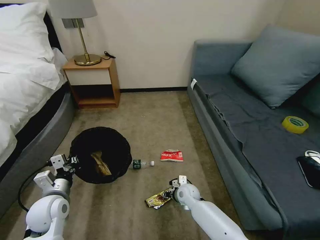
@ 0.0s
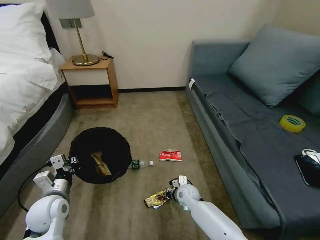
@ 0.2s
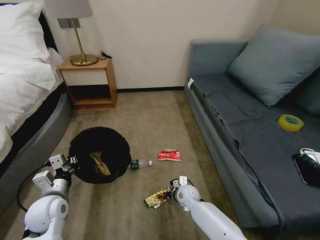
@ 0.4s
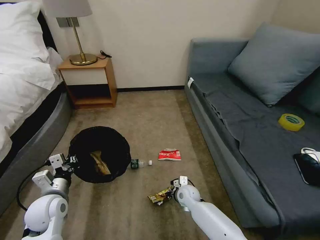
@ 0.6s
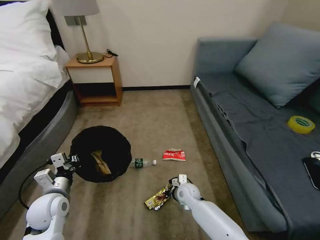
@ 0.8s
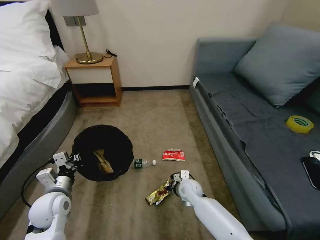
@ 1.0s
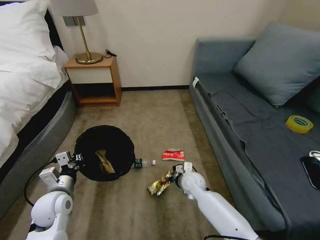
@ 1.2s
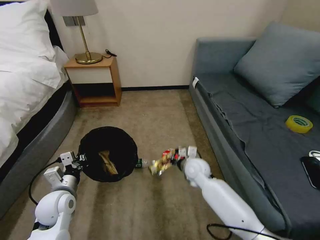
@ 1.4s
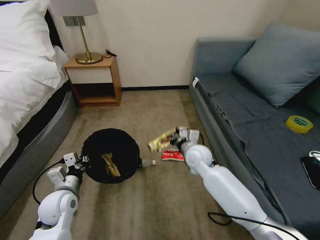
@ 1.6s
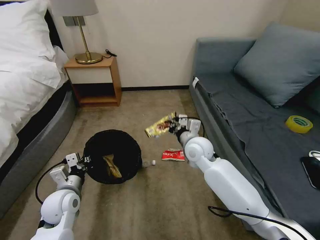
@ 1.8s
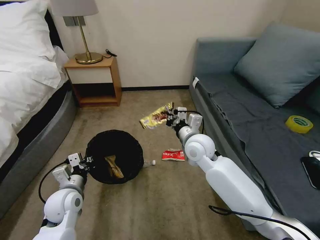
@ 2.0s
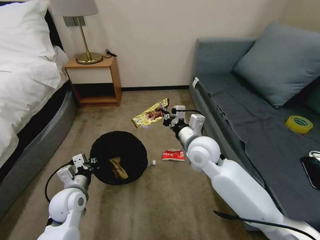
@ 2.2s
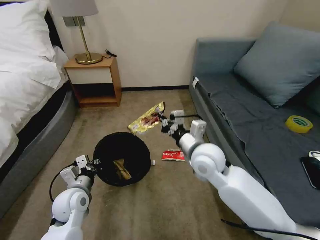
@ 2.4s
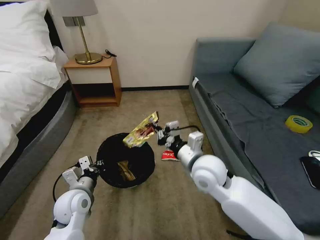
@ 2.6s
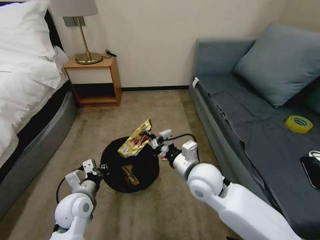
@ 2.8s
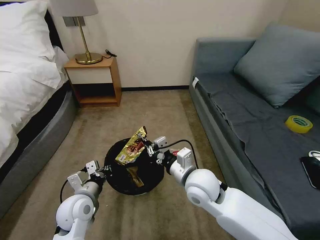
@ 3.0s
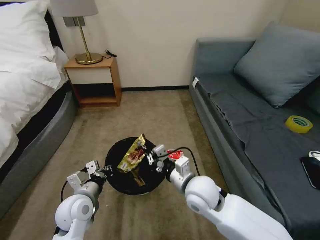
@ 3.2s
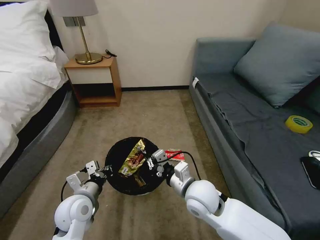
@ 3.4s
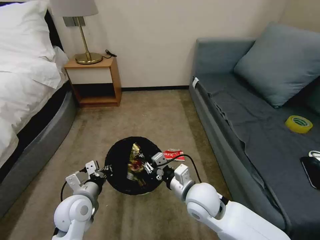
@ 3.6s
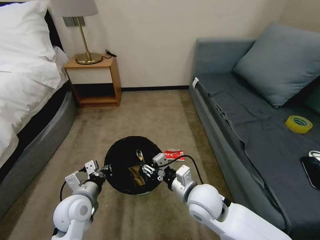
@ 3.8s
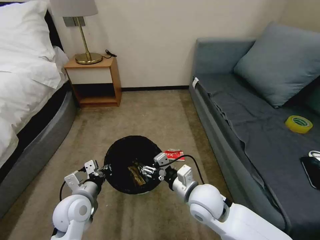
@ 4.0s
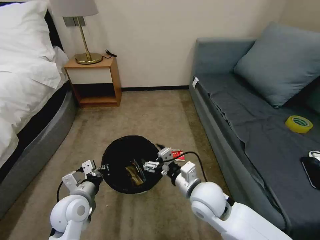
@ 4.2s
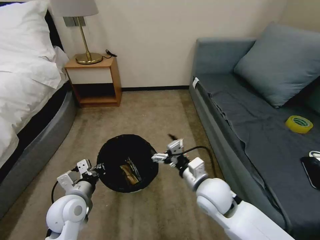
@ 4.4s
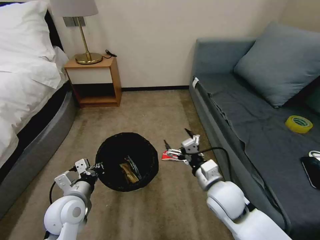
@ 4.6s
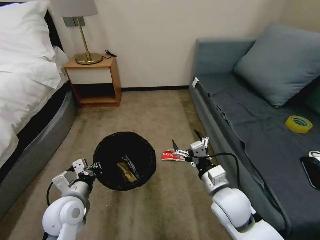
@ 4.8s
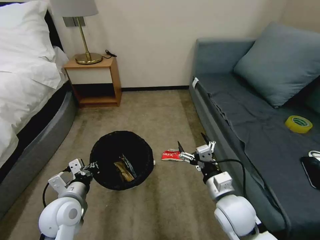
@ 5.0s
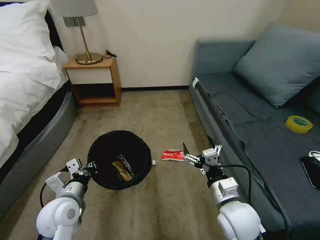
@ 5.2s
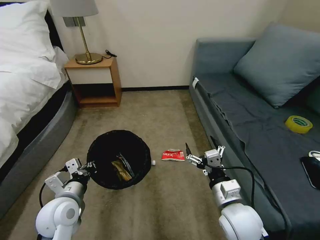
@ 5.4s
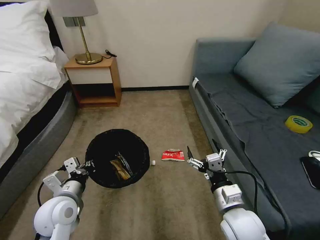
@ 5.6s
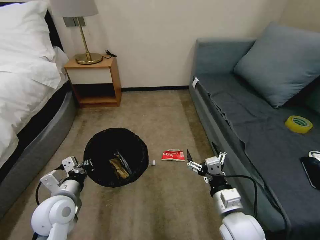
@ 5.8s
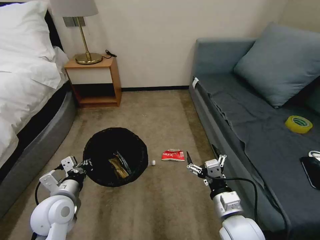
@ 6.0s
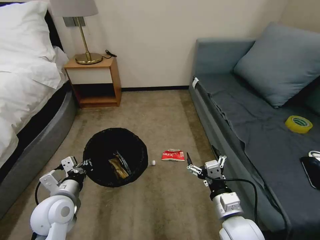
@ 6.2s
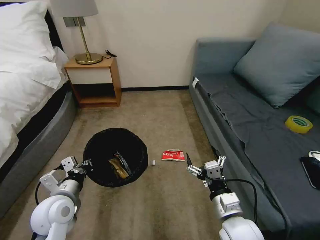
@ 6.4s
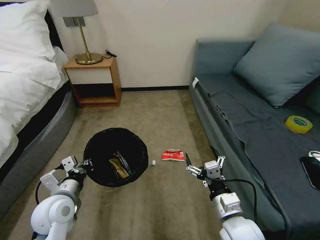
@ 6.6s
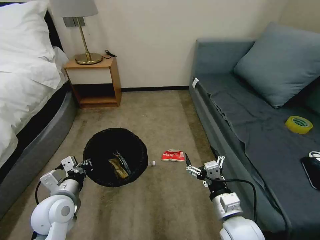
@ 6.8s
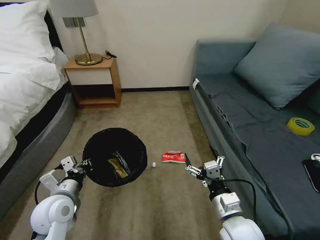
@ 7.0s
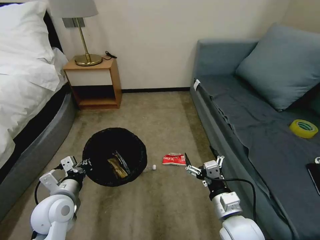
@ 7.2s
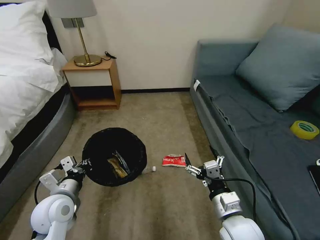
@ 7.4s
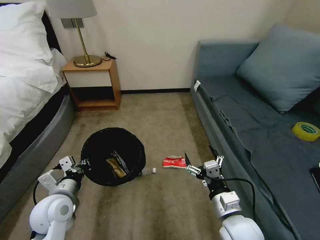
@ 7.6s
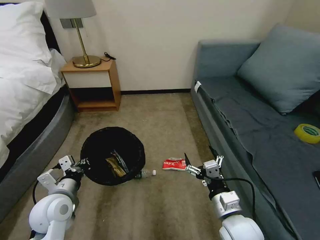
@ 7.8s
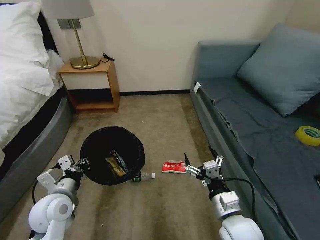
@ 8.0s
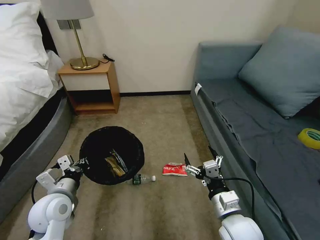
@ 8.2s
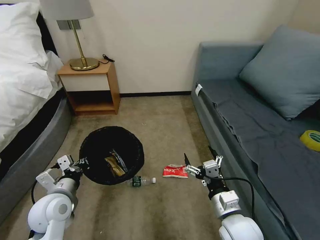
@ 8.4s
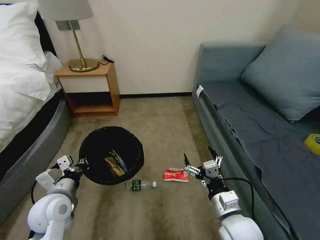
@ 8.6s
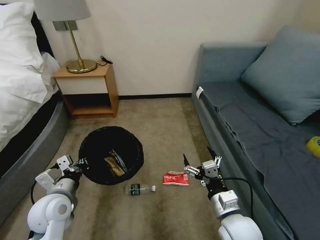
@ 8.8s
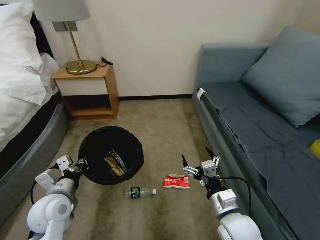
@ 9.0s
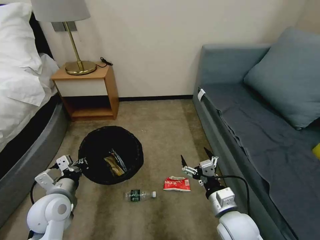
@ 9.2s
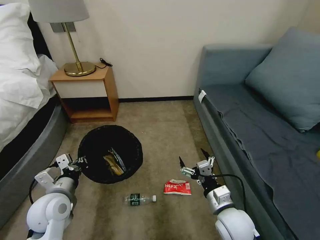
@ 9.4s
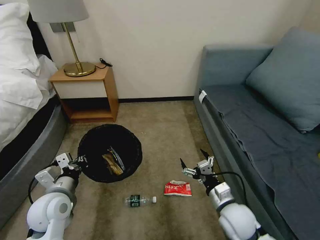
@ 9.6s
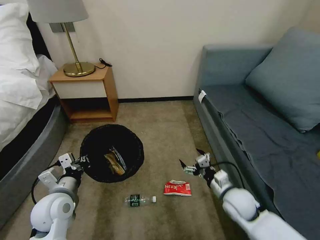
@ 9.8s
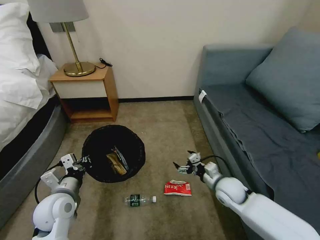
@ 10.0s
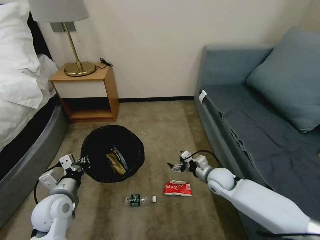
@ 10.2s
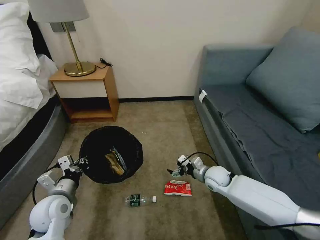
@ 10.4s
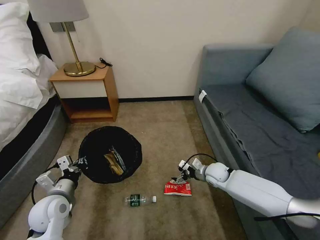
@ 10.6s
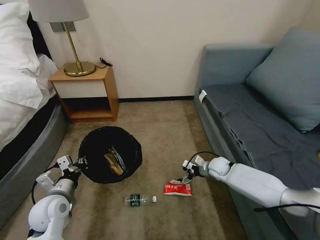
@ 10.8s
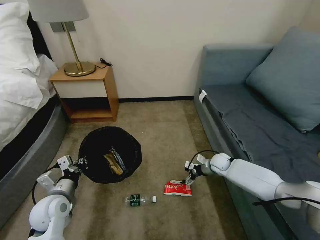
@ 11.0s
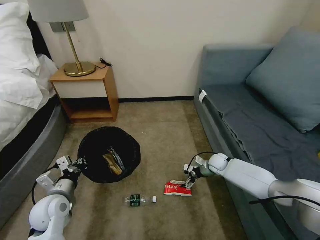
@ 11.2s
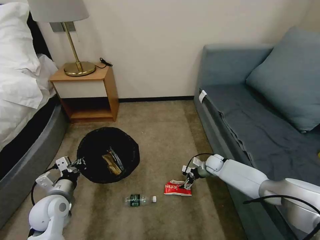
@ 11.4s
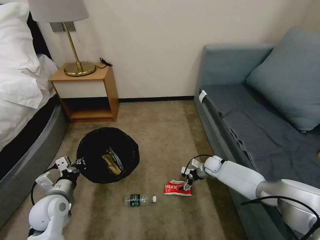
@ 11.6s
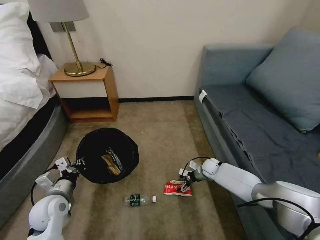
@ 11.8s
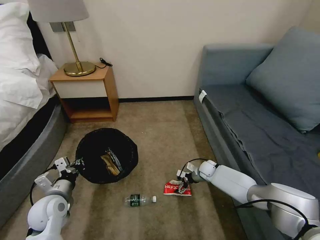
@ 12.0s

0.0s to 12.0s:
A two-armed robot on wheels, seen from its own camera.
Task of the whole recording: Pick up the trash bin, then pick up the garbage on the floor and place it into the trash bin.
0.0s to 1.6s: The right gripper moves upward, about 20 cm, and closes its fingers.
1.6s to 3.0s: The left gripper travels to the right by about 5 cm. Meanwhile the right gripper goes some 15 cm backward.
3.0s to 4.4s: The right gripper changes place by approximately 5 cm, and opens its fingers.
4.4s to 6.0s: The right gripper is displaced backward by approximately 10 cm.
6.0s to 7.6s: Both grippers stay about where they are.
9.0s to 10.4s: The right gripper travels forward and downward by some 20 cm.
10.4s to 12.0s: The right gripper travels downward and forward by roughly 15 cm.

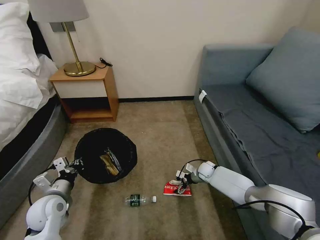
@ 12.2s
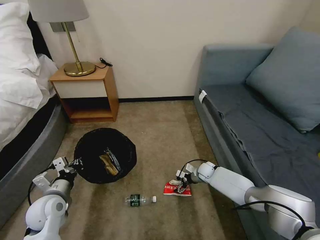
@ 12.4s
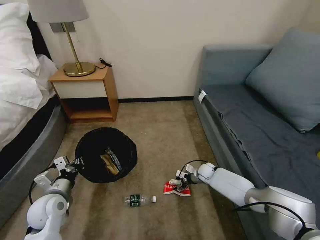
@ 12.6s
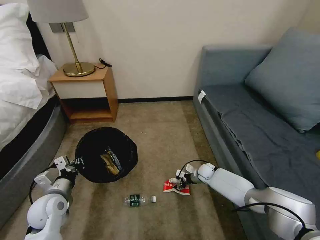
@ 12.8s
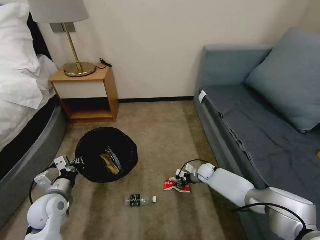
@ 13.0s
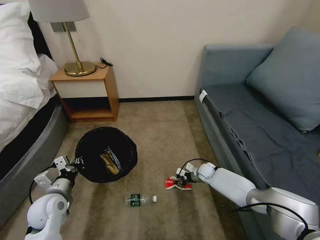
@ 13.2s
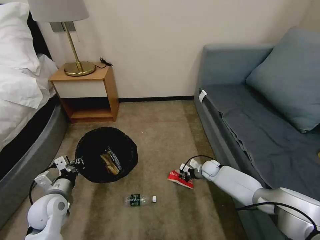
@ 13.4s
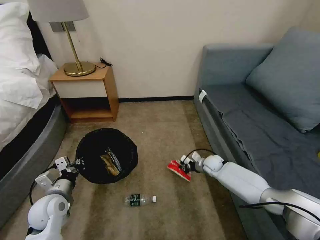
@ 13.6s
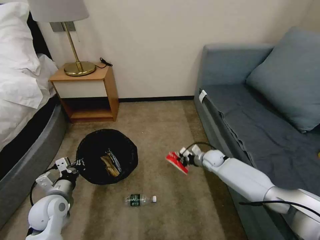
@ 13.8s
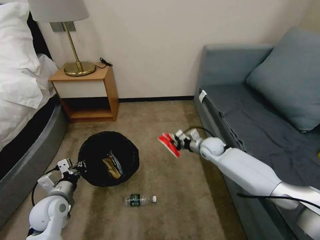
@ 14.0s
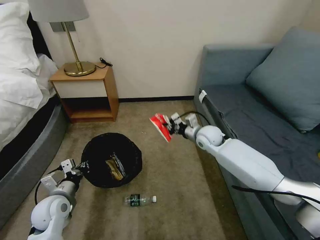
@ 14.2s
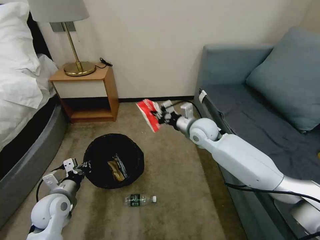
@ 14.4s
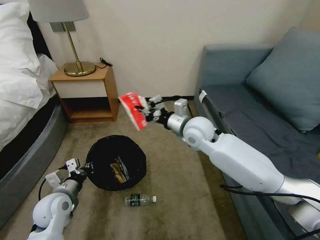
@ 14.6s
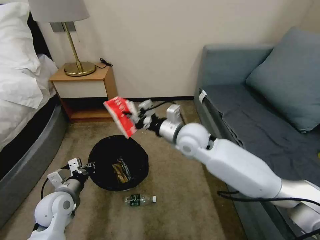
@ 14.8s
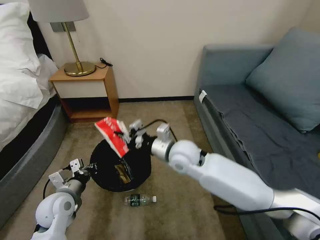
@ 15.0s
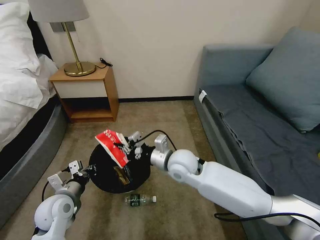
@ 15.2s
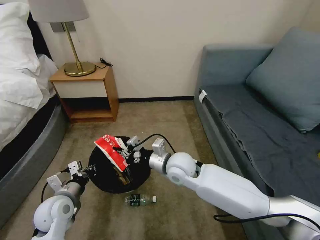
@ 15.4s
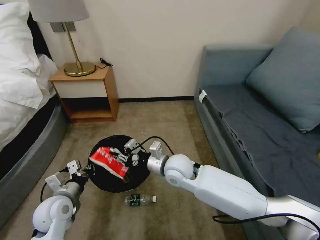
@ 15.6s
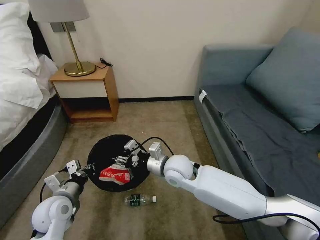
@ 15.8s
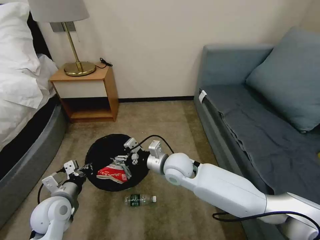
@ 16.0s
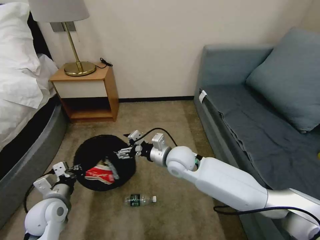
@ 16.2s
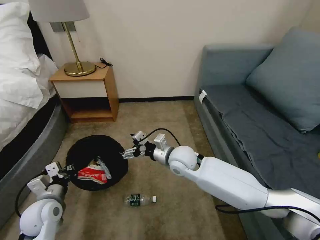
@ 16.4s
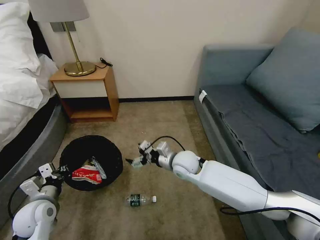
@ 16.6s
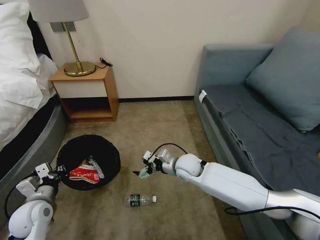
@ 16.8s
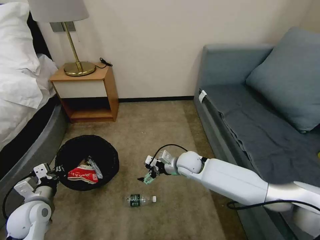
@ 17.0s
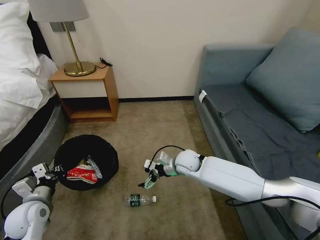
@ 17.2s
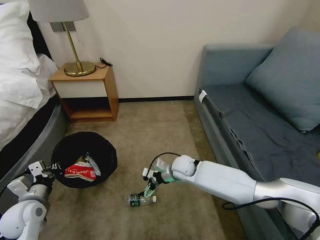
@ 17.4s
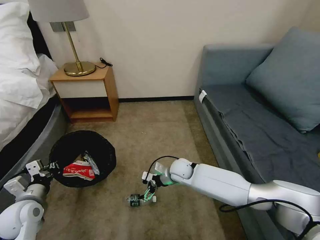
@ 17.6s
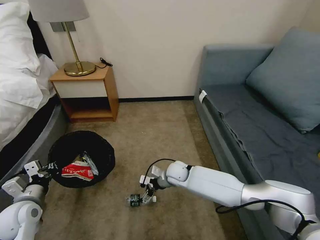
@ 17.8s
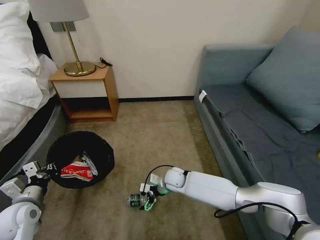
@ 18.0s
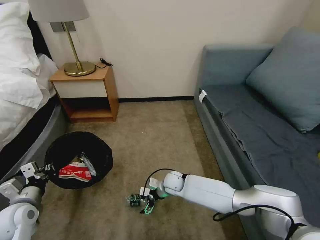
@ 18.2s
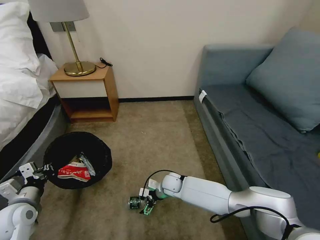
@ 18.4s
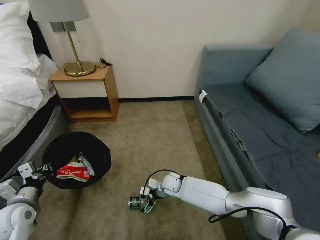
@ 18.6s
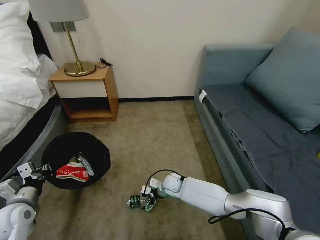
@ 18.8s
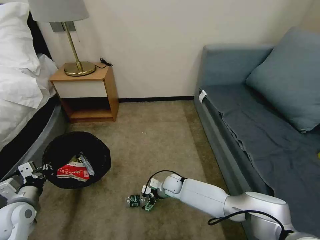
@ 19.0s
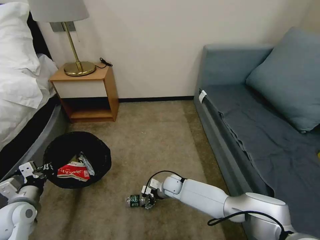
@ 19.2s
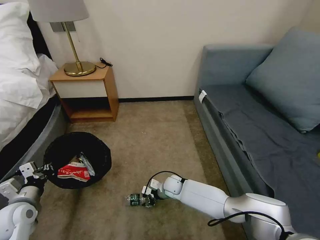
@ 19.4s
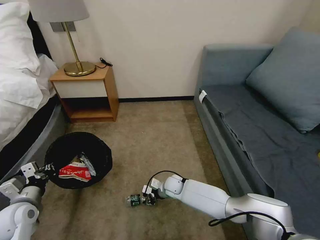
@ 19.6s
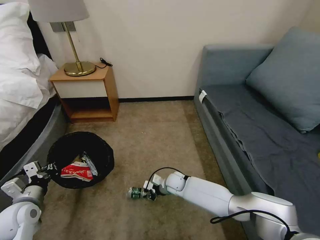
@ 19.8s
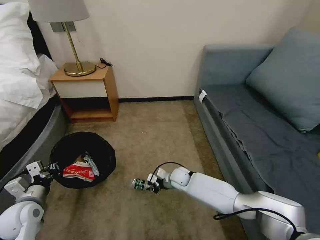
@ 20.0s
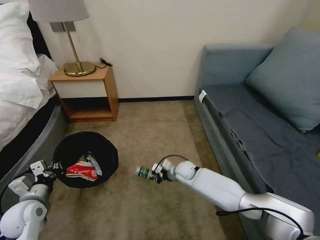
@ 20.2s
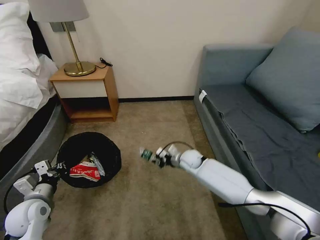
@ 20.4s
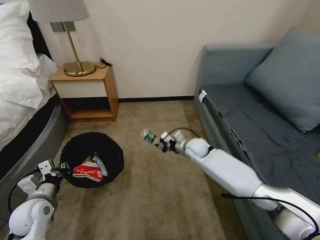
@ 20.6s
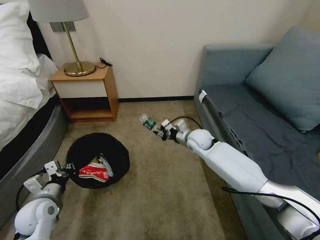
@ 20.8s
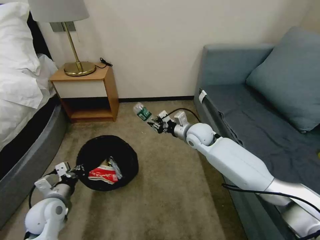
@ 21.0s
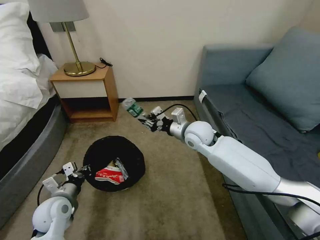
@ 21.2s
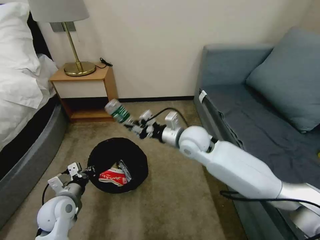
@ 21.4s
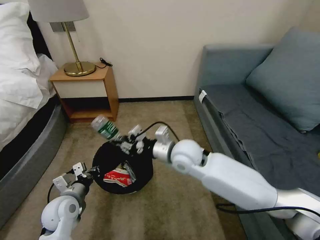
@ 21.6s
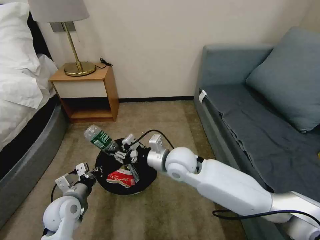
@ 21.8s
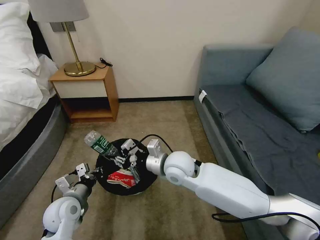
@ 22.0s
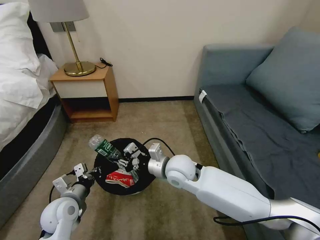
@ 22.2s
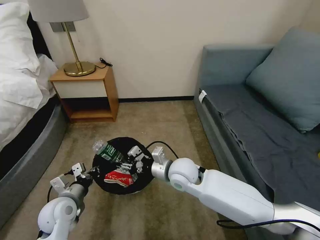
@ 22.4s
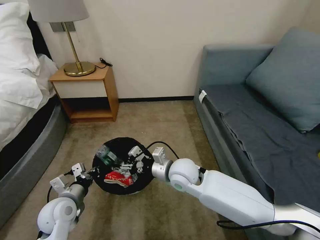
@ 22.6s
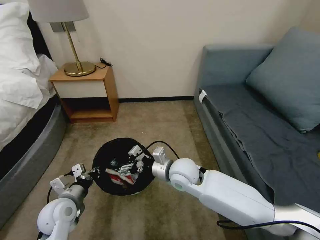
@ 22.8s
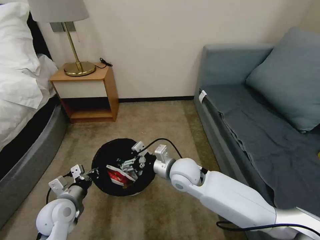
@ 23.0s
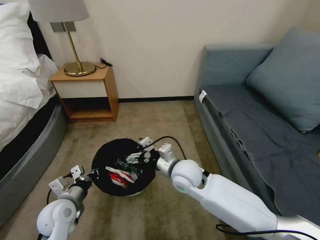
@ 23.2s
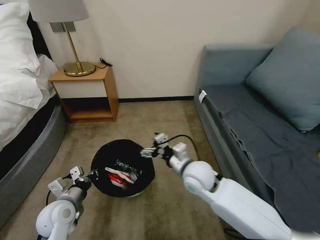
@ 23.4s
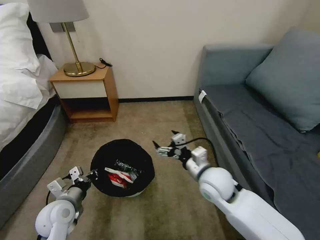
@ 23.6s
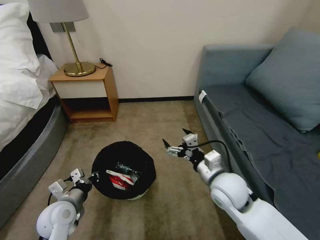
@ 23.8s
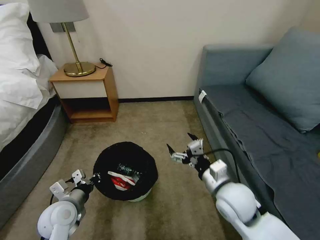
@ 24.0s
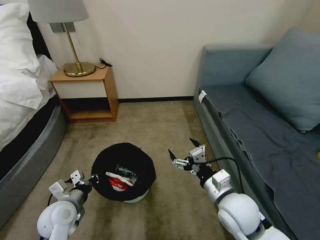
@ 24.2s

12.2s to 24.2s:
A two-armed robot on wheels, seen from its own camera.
Task of the whole recording: Pick up the trash bin, then pick up the garbage on the floor and place it into the trash bin.
12.2s to 13.8s: The right gripper goes about 10 cm upward, and closes its fingers.
13.8s to 15.2s: The right gripper goes roughly 25 cm to the left, upward and backward.
15.2s to 16.6s: The left gripper is displaced to the left by some 5 cm. Meanwhile the right gripper is displaced downward by approximately 5 cm, and opens.
16.6s to 18.2s: The right gripper travels downward by some 15 cm.
18.2s to 19.8s: The right gripper closes its fingers.
19.8s to 21.2s: The right gripper shifts approximately 25 cm upward. Meanwhile the left gripper shifts roughly 10 cm to the right.
21.2s to 22.6s: The right gripper goes some 15 cm backward, to the left and downward, and opens.
22.6s to 24.2s: The right gripper is displaced to the right and backward by some 15 cm, and opens.
